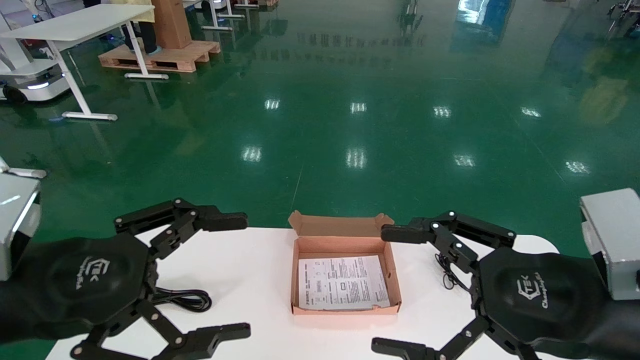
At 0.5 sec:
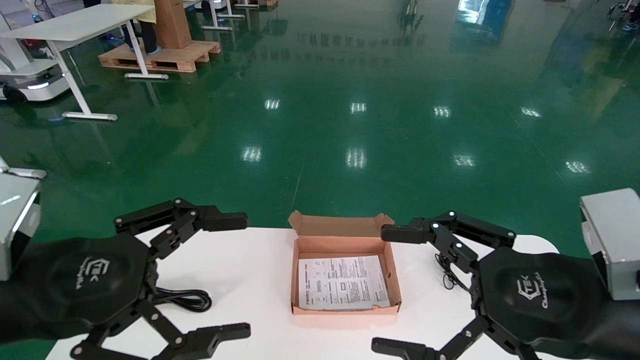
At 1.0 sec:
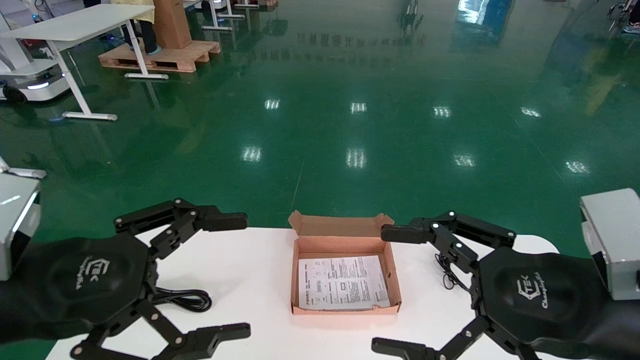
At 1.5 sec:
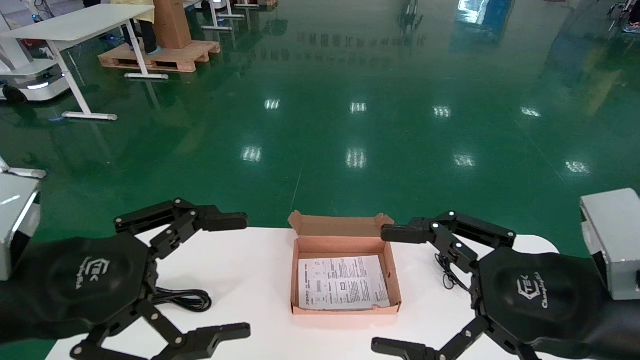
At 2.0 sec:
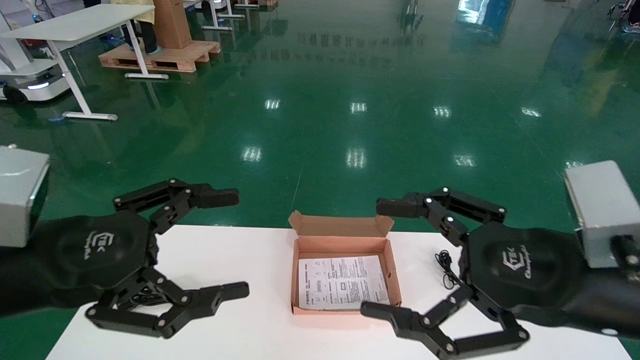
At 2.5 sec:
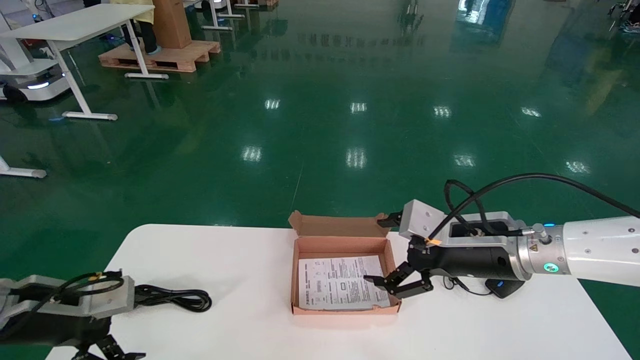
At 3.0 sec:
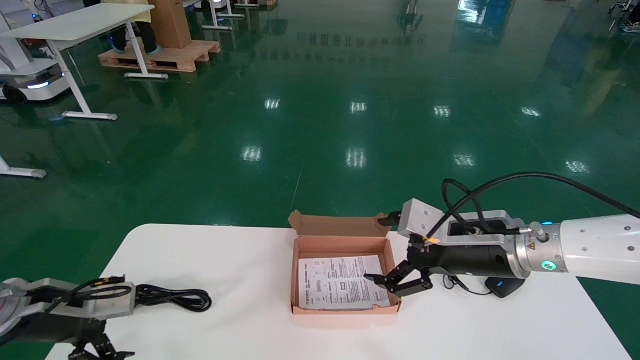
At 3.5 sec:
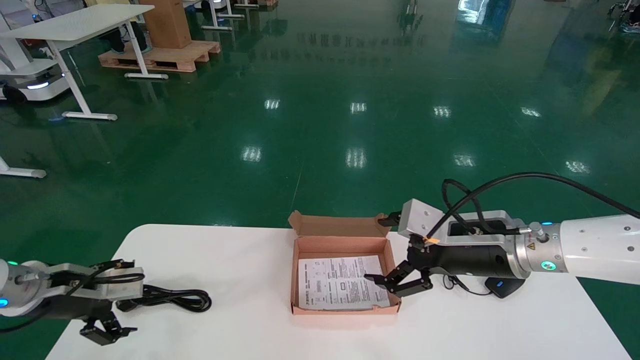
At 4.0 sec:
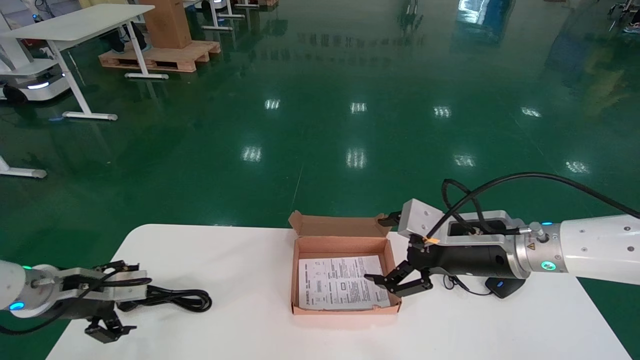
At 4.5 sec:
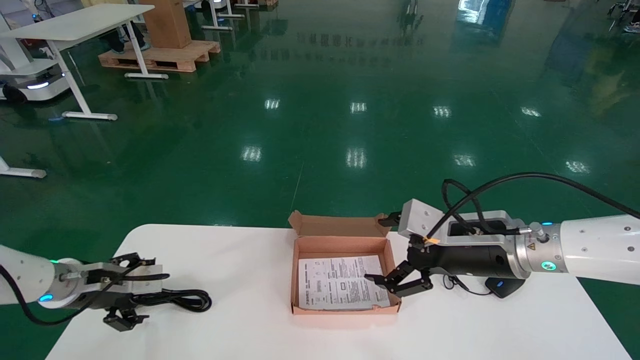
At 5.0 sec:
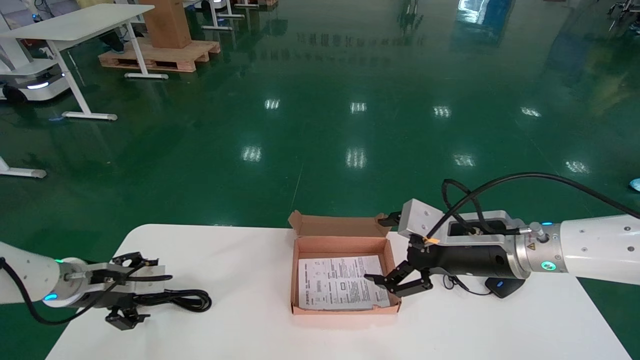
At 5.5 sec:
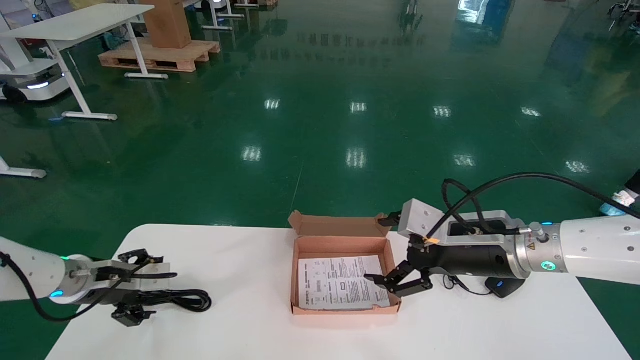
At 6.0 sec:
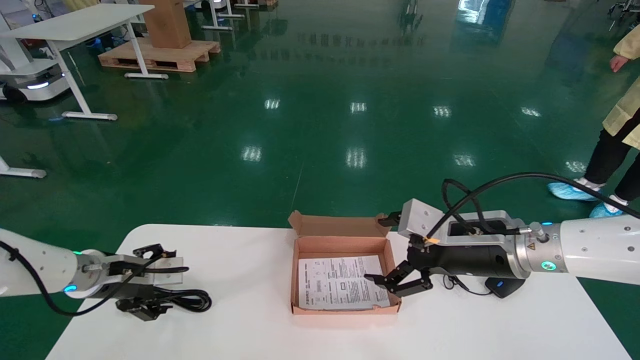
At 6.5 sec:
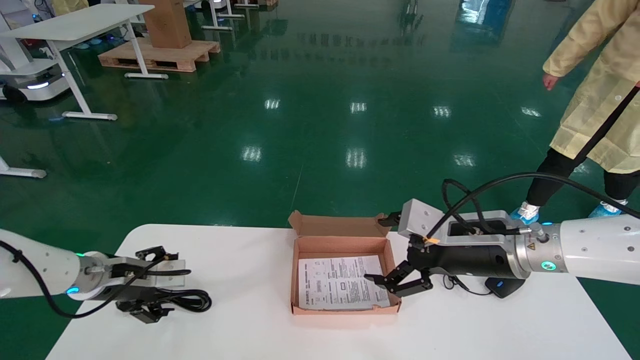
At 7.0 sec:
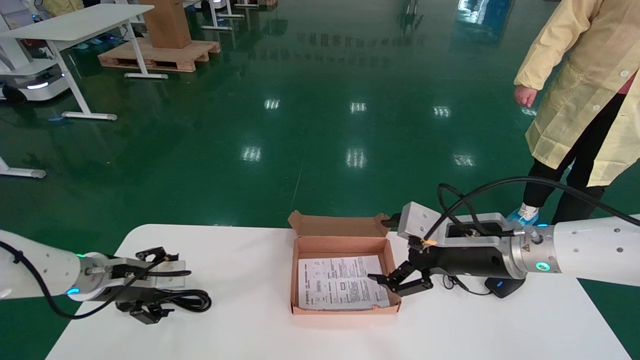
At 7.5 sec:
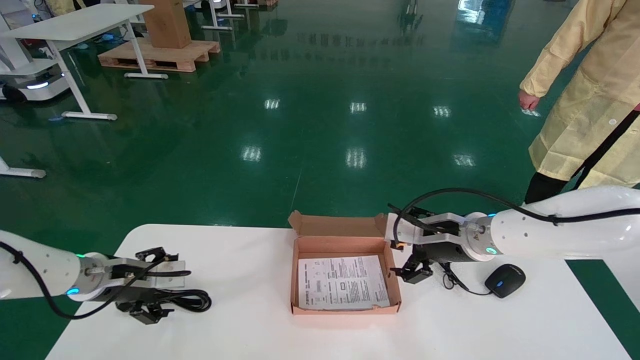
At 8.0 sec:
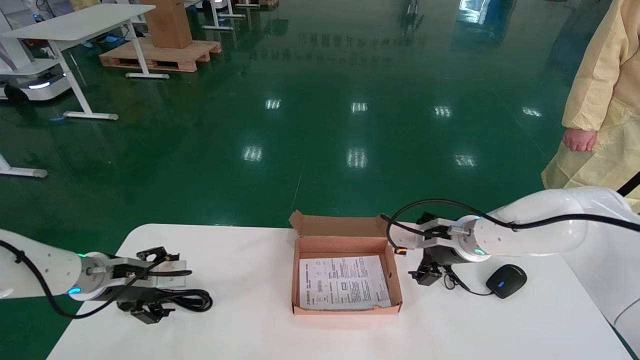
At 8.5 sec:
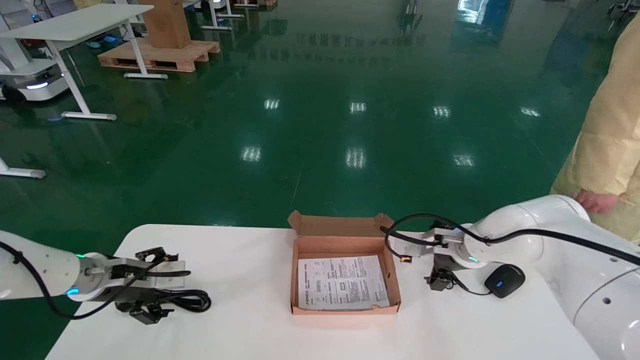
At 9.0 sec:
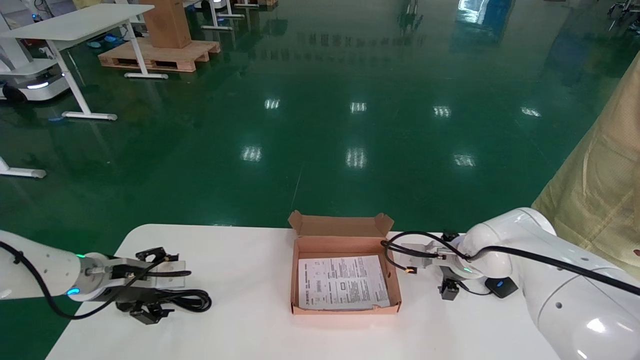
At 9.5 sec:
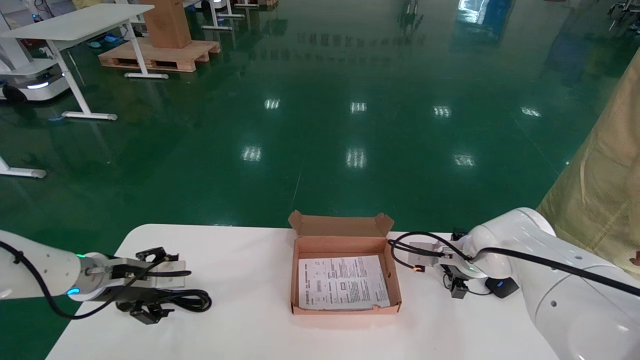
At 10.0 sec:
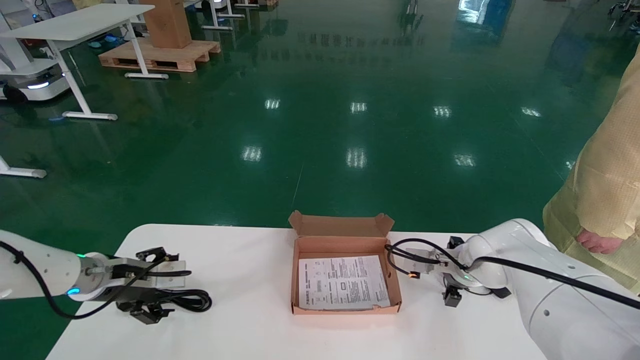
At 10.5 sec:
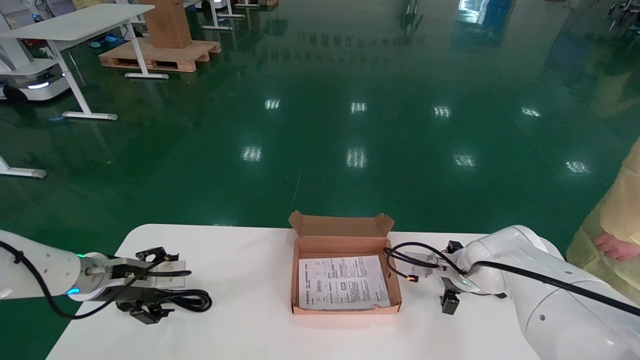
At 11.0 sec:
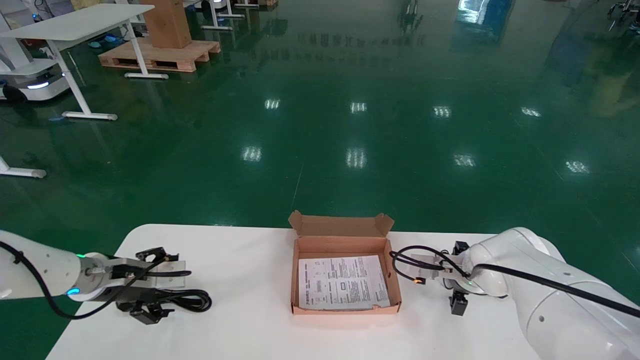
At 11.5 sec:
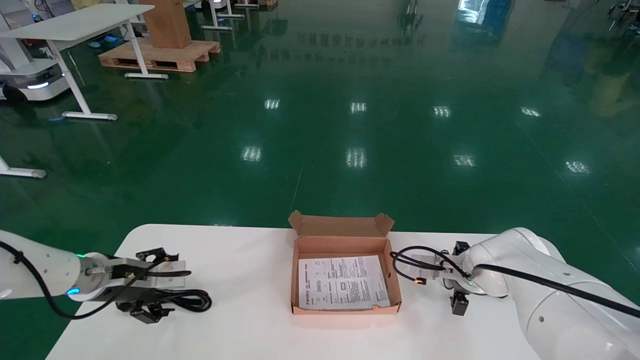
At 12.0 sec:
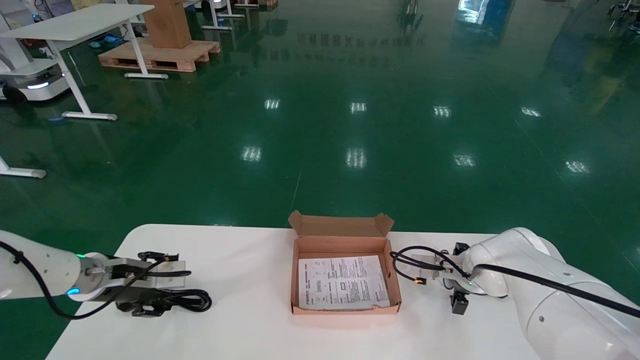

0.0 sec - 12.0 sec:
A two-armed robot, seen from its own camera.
2.0 sec - 4.0 sec: The left gripper is displaced forward, downward and to the left by roughly 20 cm. Meanwhile the right gripper shifts roughly 15 cm forward.
4.0 sec - 6.0 sec: The left gripper goes about 5 cm forward.
6.0 sec - 8.0 sec: The grippers make only small movements.
8.0 sec - 10.0 sec: The right gripper shifts some 15 cm forward and downward.
10.0 sec - 12.0 sec: The grippers stay close to where they were, moving slightly.

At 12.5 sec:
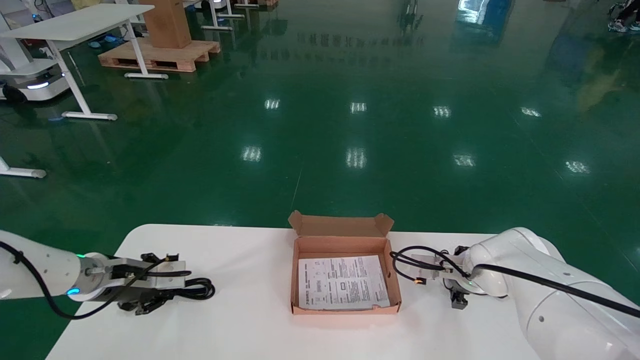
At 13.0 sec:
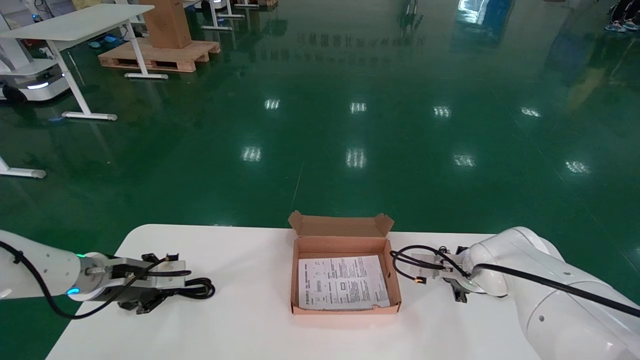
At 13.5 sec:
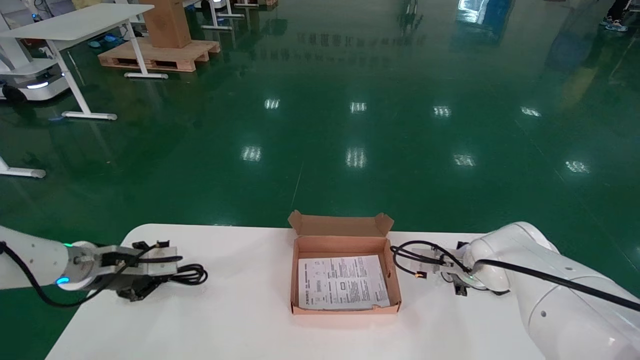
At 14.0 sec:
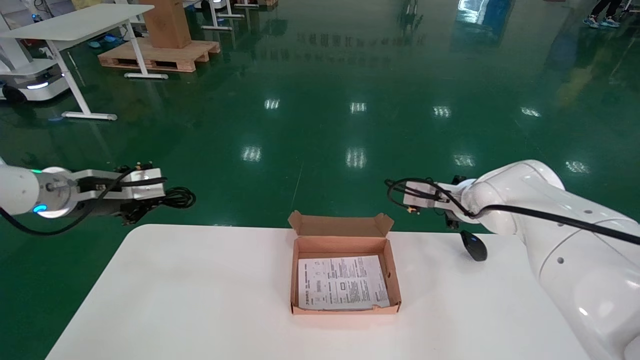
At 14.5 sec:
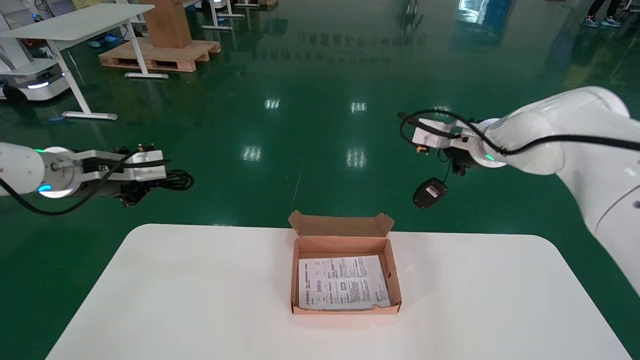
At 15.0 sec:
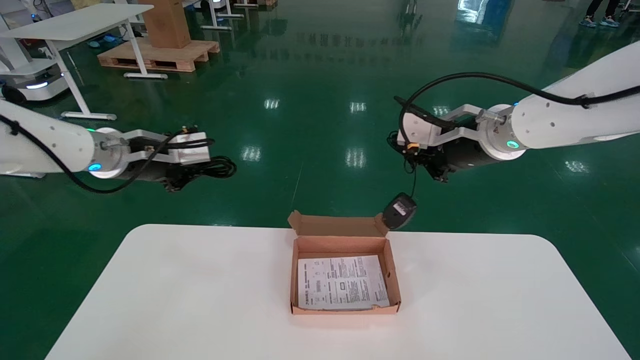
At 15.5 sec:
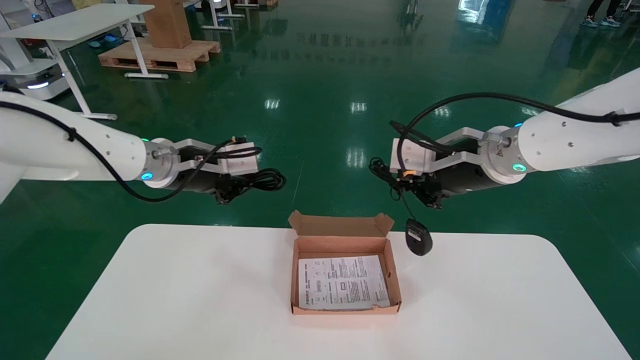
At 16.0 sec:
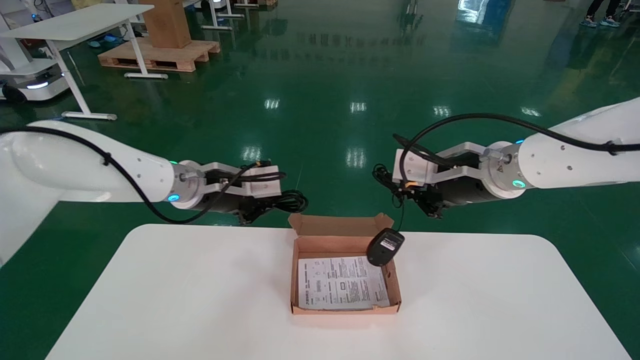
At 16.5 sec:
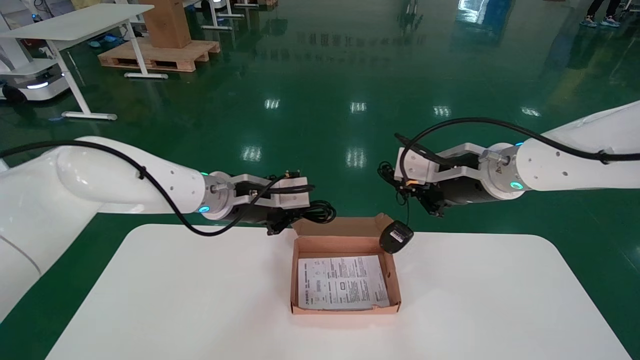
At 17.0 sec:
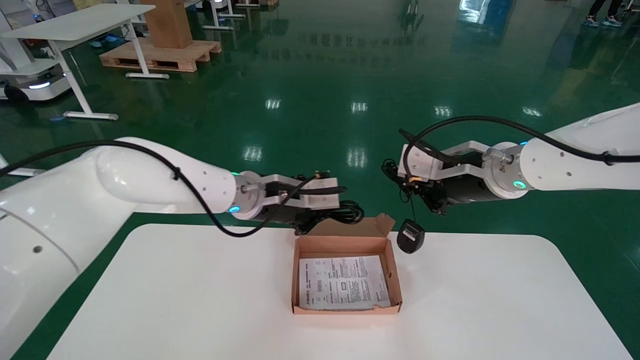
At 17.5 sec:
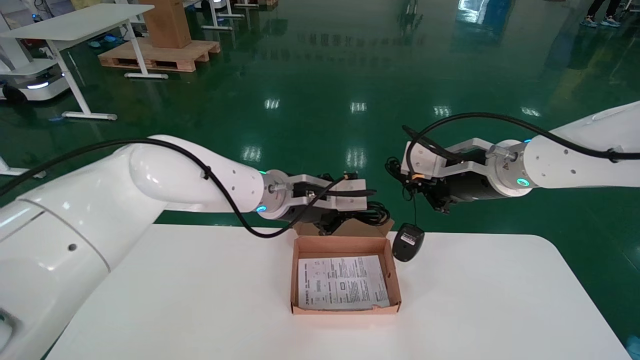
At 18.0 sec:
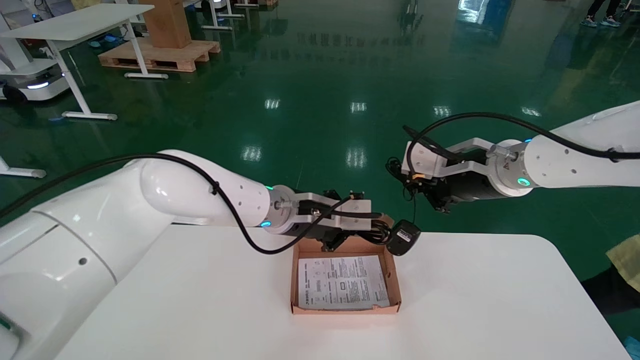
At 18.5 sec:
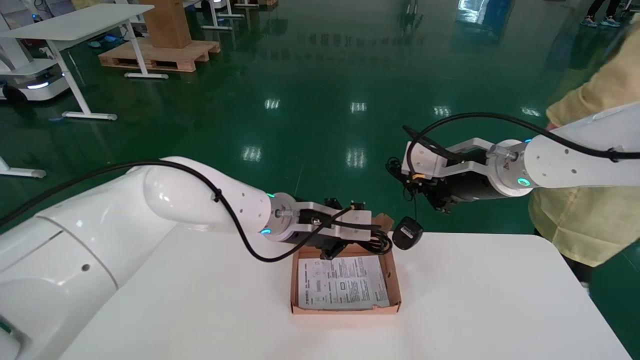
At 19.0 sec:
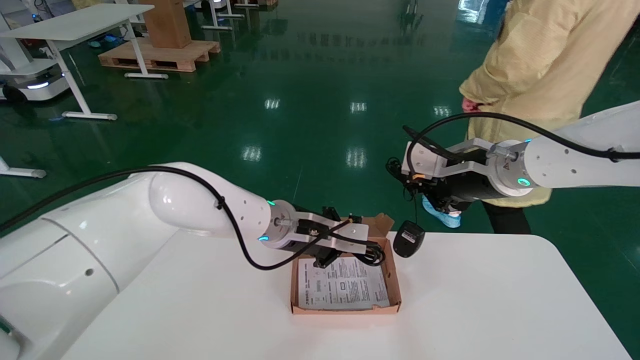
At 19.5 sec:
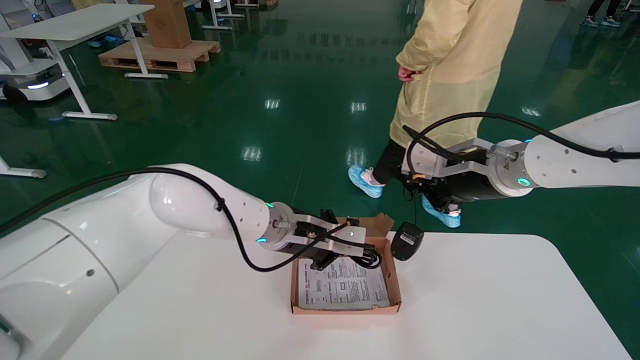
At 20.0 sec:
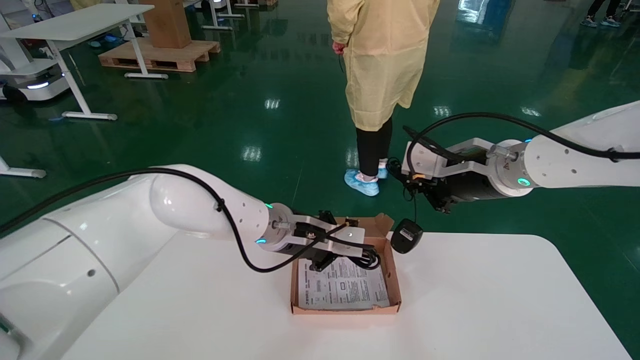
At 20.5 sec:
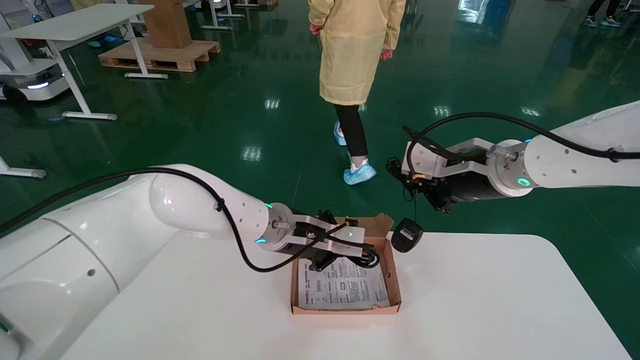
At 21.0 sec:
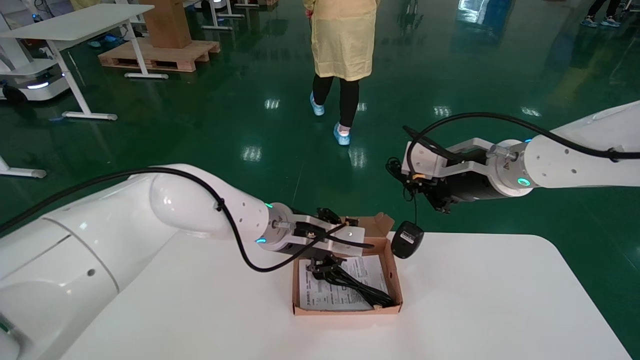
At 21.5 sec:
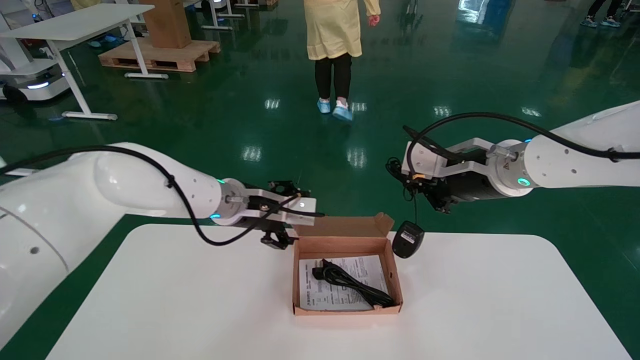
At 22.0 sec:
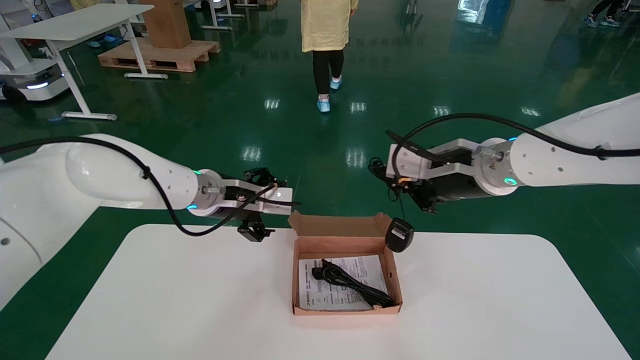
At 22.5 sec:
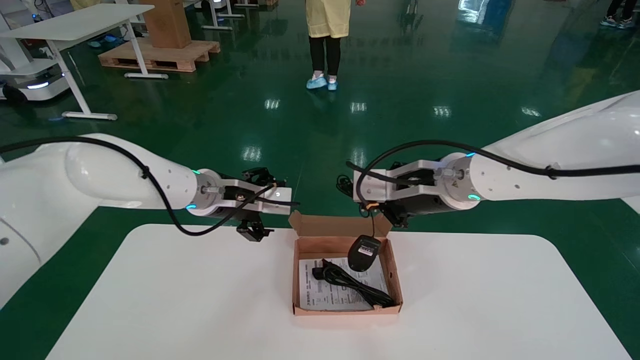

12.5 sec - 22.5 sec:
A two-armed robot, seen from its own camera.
Step, 12.5 sec - 14.5 sec: Grab and pick up the mouse and power cord from the accessory packaging area.
Step, 15.0 sec - 22.5 sec: Place the mouse and power cord into the box.
12.5 sec - 14.5 sec: The right gripper closes up. Meanwhile the left gripper closes.
14.5 sec - 16.5 sec: The right gripper travels upward and backward by approximately 20 cm; the left gripper is displaced upward and to the right by roughly 20 cm.
16.5 sec - 18.5 sec: The left gripper heads to the right, covering some 15 cm.
18.5 sec - 20.5 sec: There are only small adjustments of the grippers.
20.5 sec - 22.5 sec: The left gripper is displaced to the left by about 5 cm, and opens its fingers.
